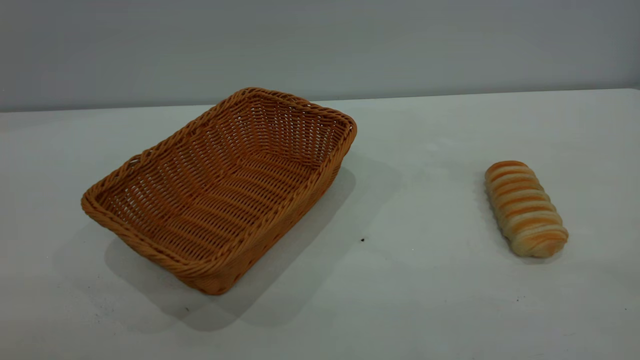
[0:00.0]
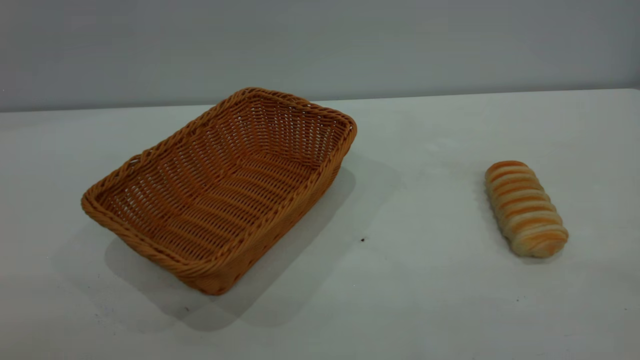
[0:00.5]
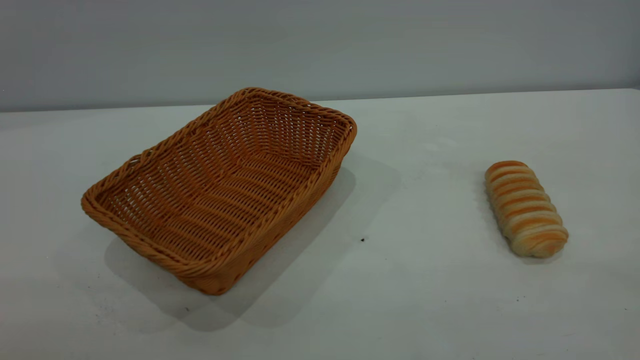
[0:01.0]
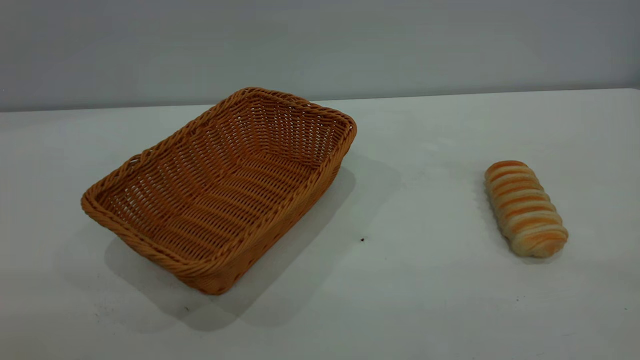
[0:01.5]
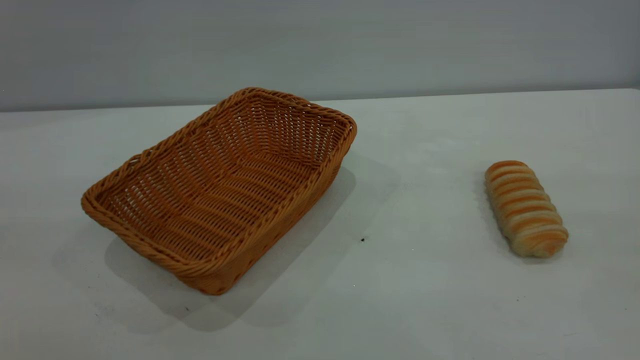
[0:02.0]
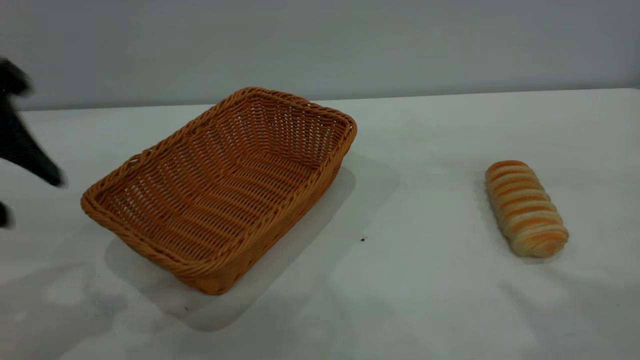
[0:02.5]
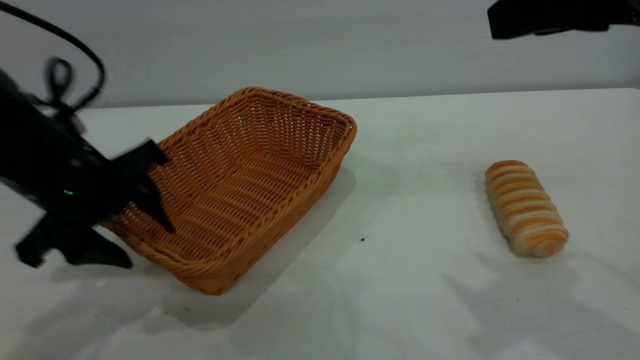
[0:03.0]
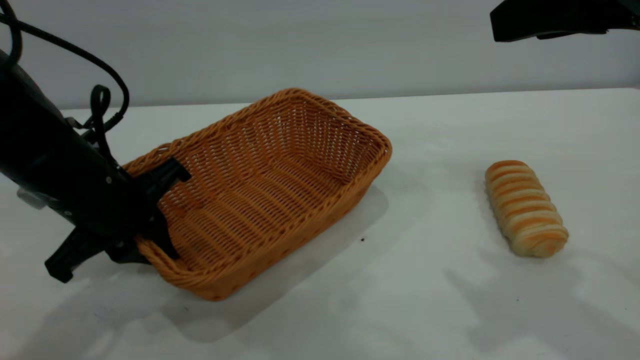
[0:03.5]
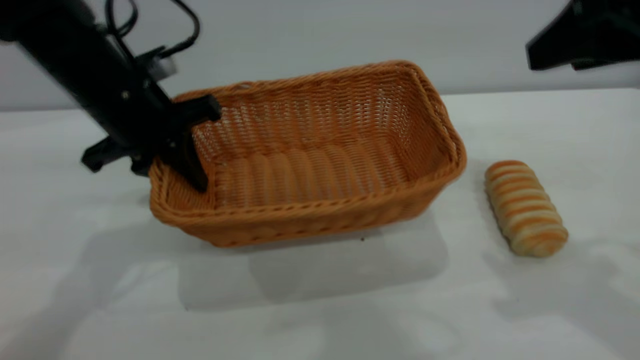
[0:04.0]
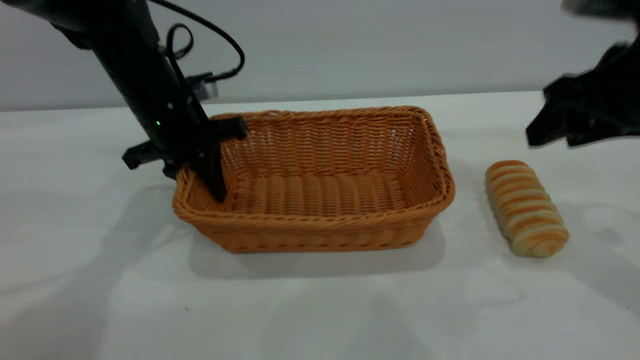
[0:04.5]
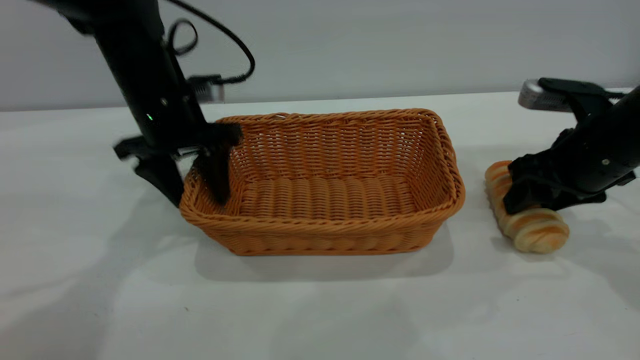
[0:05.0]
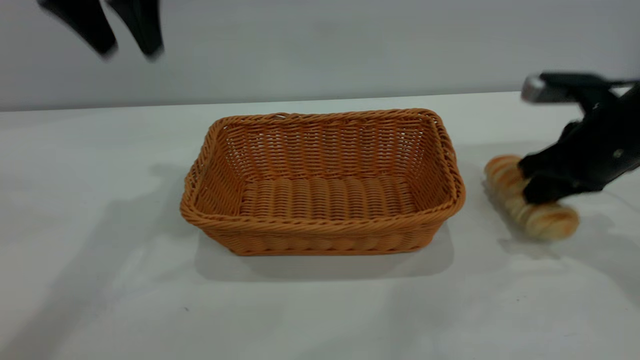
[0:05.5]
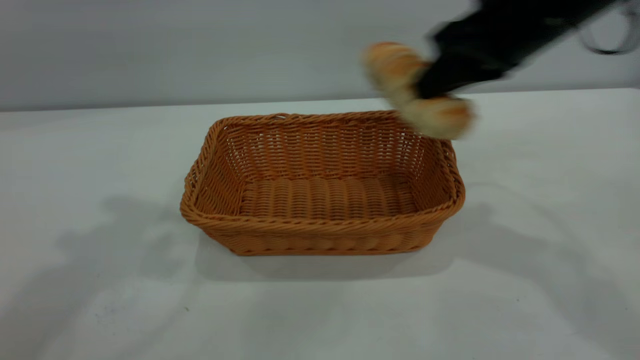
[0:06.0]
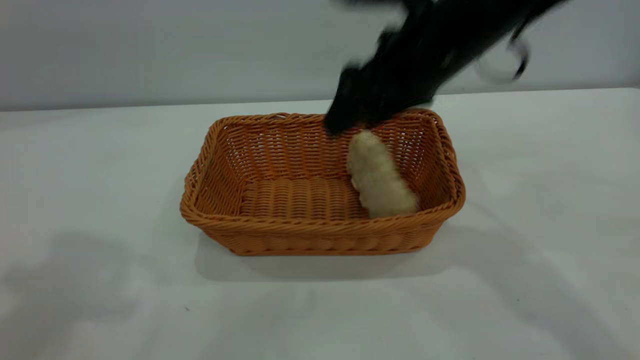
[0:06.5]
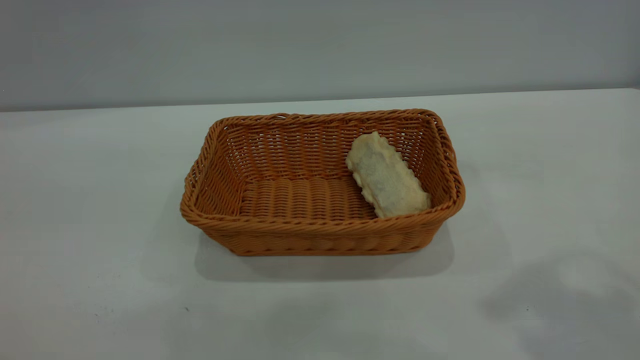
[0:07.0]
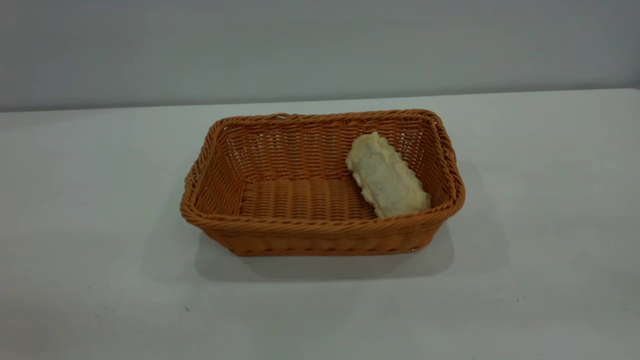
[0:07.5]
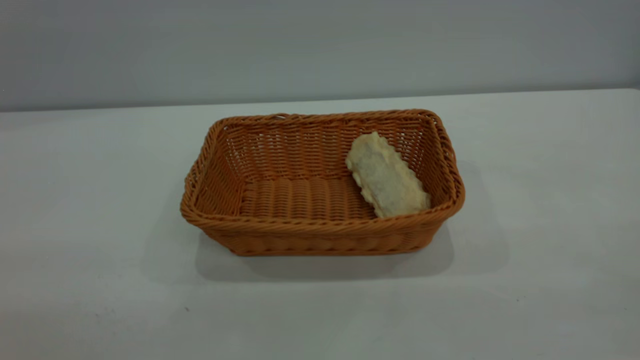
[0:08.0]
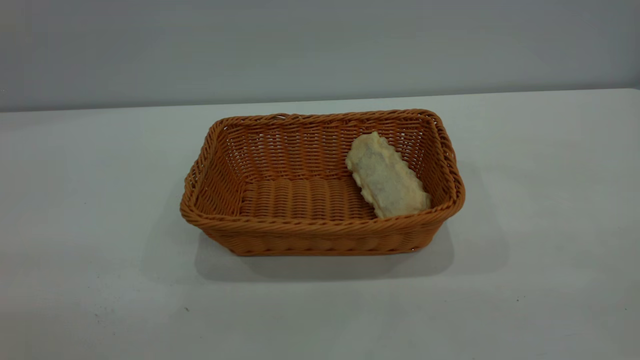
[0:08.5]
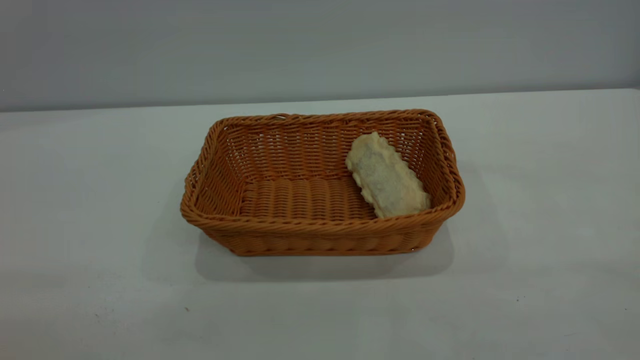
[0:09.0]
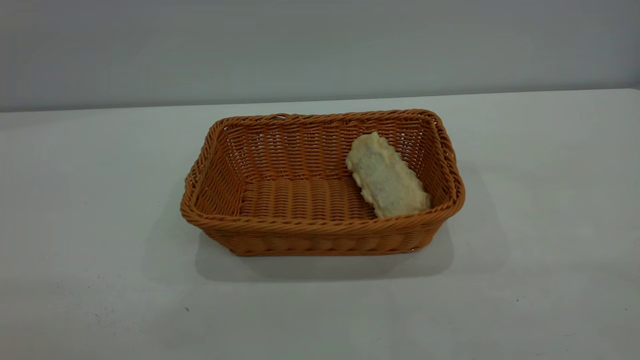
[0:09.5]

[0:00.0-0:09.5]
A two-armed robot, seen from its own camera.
Task of the whole recording: One hand grasps the yellow basket and places it in the middle of the table, while the other hand picks up the long bread and puts it into the yellow basket.
Step, 0:00.0 to 0:05.0: Move the basket to the center of view.
Step, 0:06.0 to 0:06.5: place the bread into the basket.
0:02.0 to 0:04.0: The left gripper moves forward and downward, about 30 cm, and closes its fingers, while the right gripper travels forward and downward by about 20 cm.
0:04.0 to 0:05.5: The right gripper is displaced downward and forward by roughly 15 cm, and closes up. Meanwhile the left gripper heads upward, covering approximately 15 cm, and opens up.
0:05.5 to 0:07.5: The left gripper travels backward by roughly 35 cm, while the right gripper goes approximately 35 cm backward and upward, and opens its fingers.

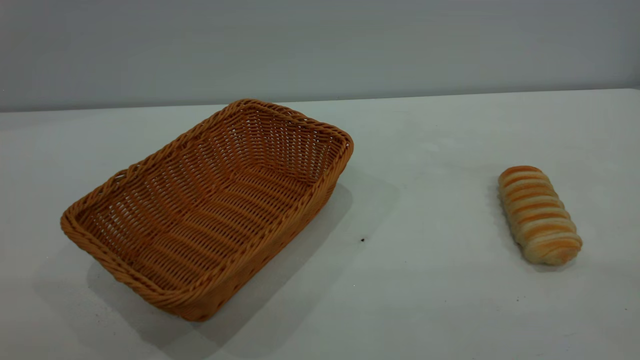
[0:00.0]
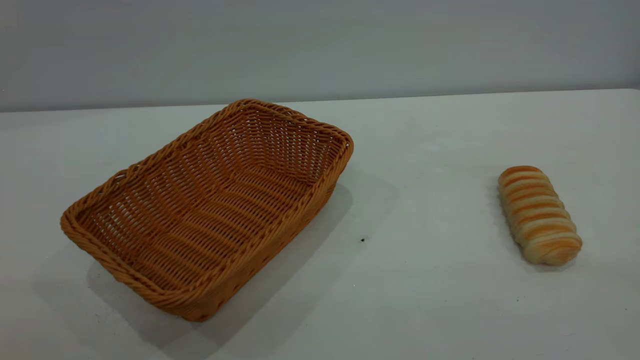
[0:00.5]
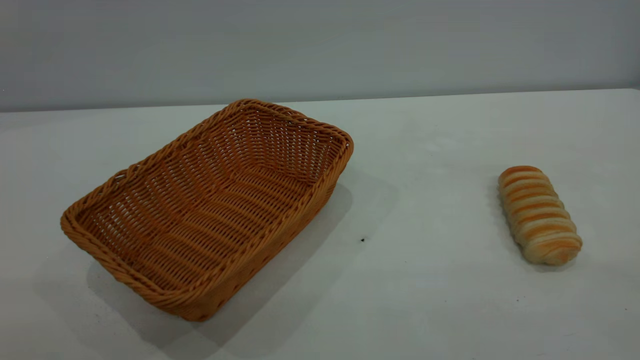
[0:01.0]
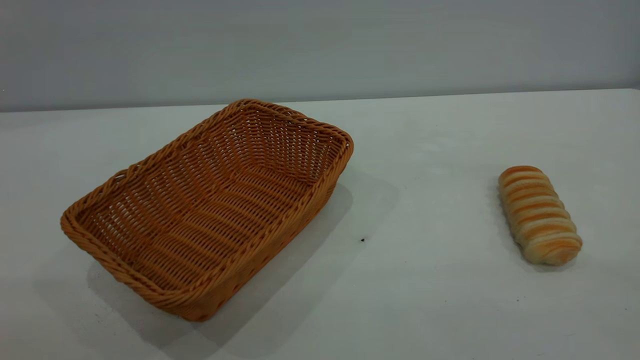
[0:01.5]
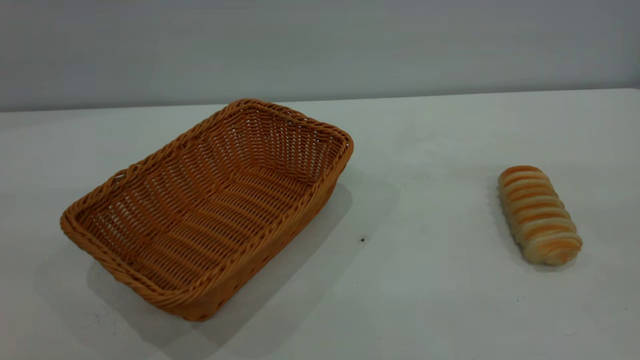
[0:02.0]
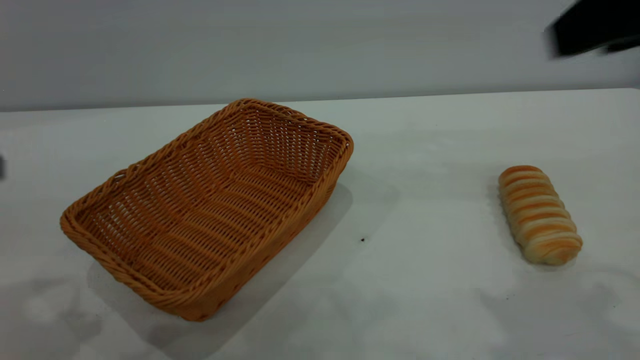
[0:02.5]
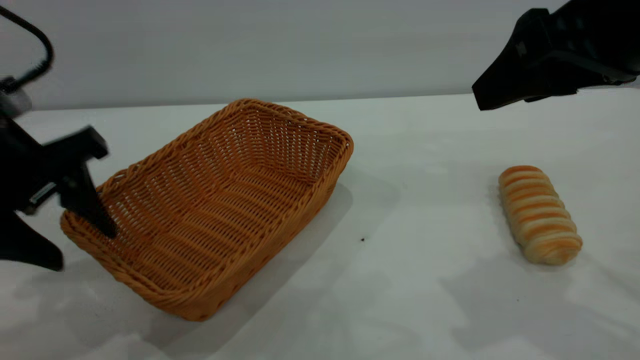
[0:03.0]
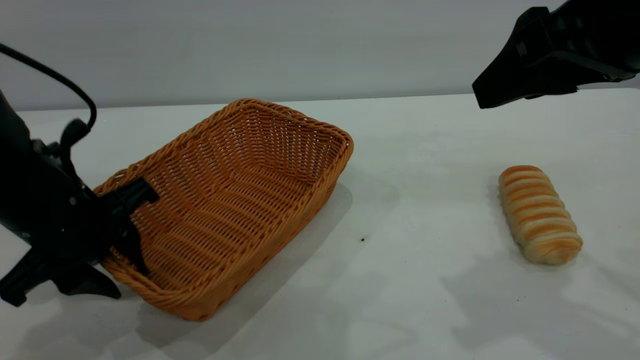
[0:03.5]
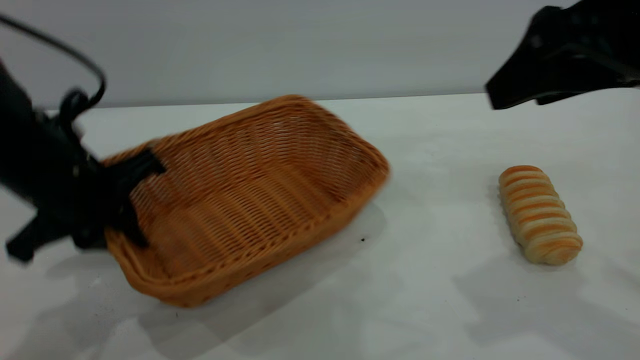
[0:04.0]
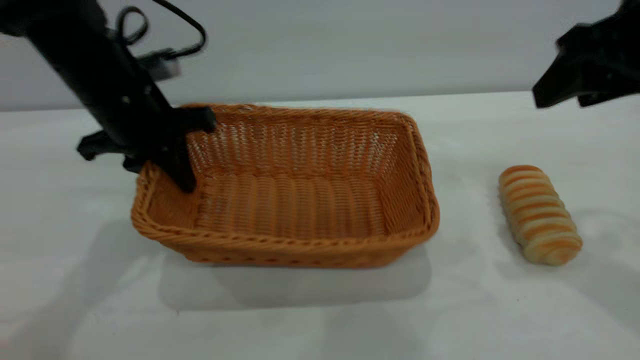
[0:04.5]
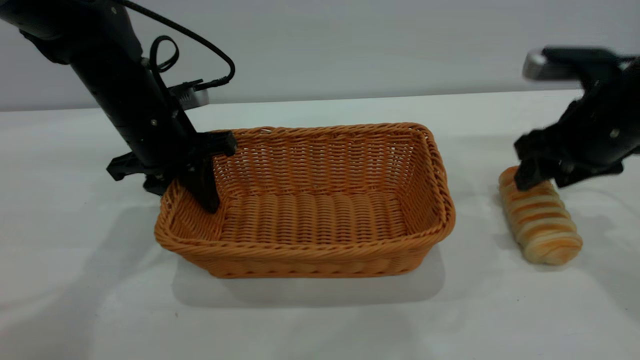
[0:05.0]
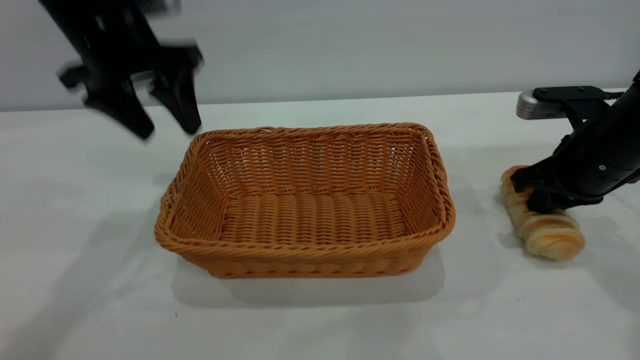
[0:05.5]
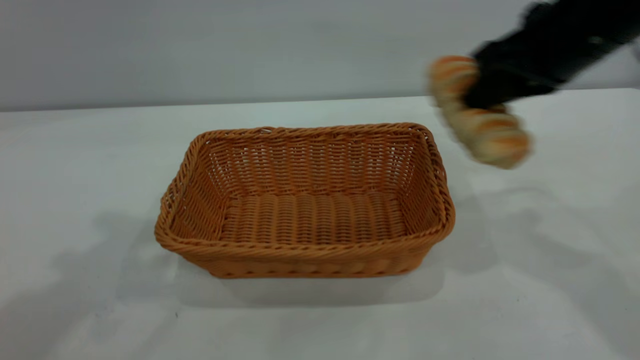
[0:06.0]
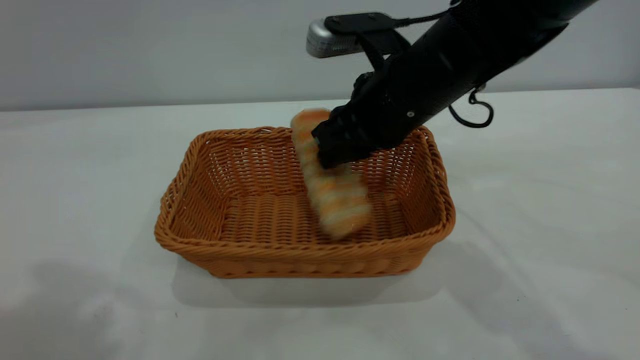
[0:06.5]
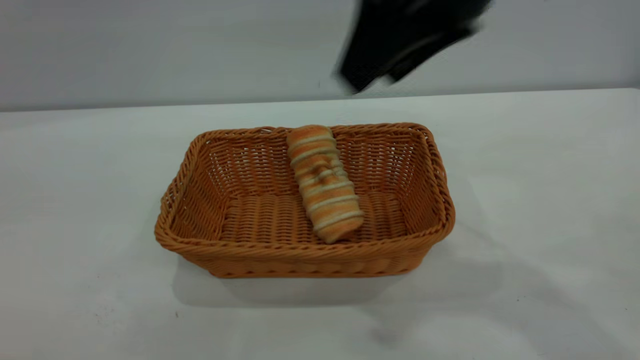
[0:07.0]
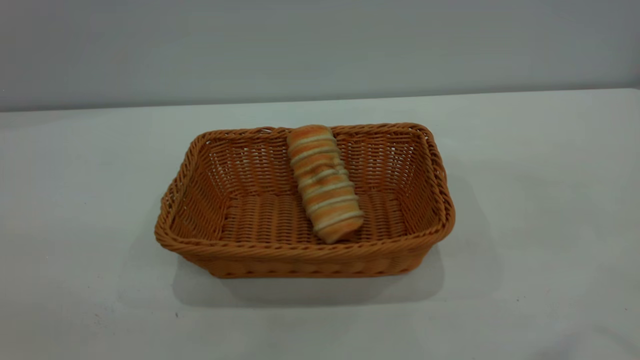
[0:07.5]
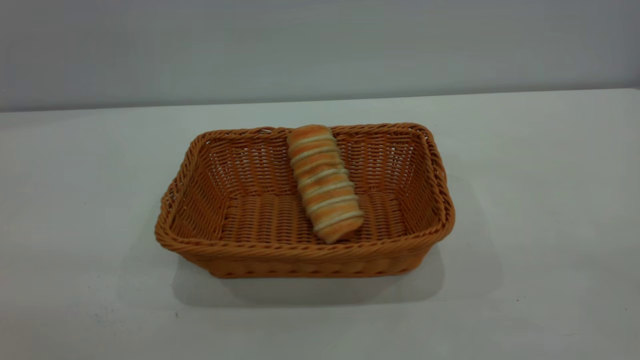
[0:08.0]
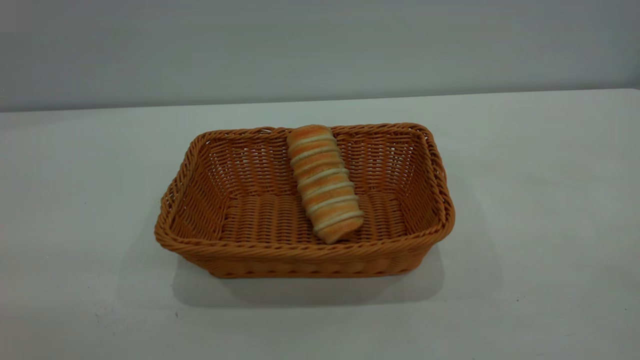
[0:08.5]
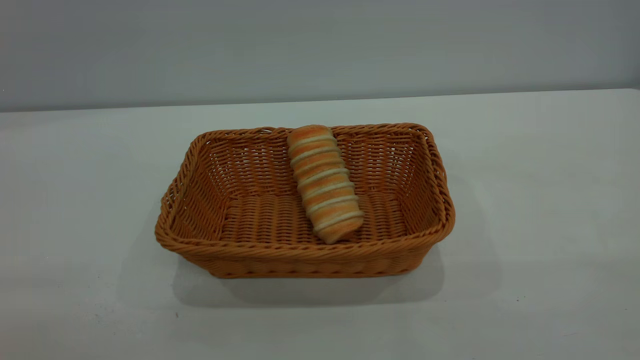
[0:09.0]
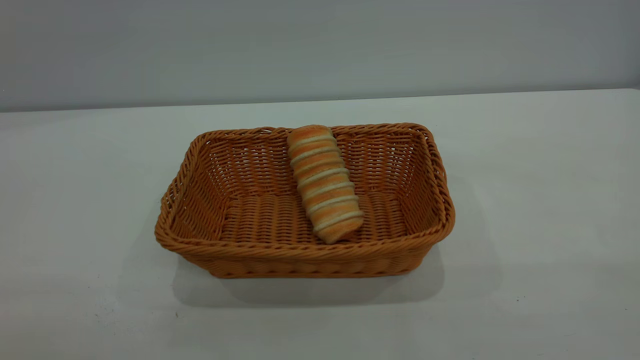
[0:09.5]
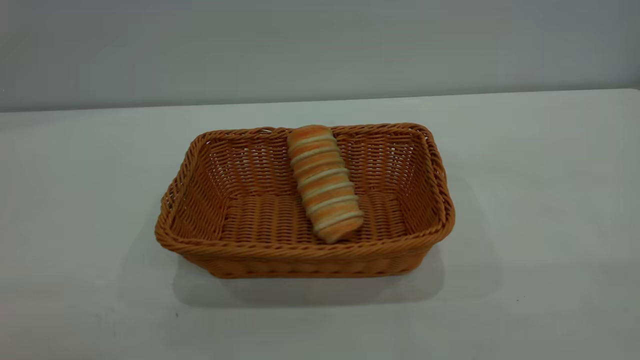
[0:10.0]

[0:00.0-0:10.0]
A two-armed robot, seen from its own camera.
Task of the whole recording: One hand grasps the yellow basket and places it in the middle of the table, while the other hand picks up the long bread and puts it into the yellow basket.
Step, 0:00.0 to 0:05.0: Move the basket to the center of view.
Step, 0:06.0 to 0:06.5: place the bread into the basket.
0:02.0 to 0:04.0: The right gripper heads forward, downward and to the left, covering about 20 cm, while the left gripper goes roughly 30 cm downward and forward, and closes up.
0:04.0 to 0:06.0: The left gripper is displaced upward by roughly 30 cm, and opens its fingers; the right gripper goes some 10 cm forward, reaches approximately 20 cm downward, then returns, and closes up.
0:06.0 to 0:08.0: The left gripper shifts about 30 cm backward and downward; the right gripper moves backward, some 30 cm, and opens its fingers.
